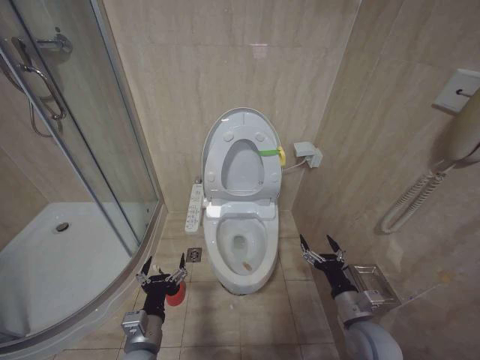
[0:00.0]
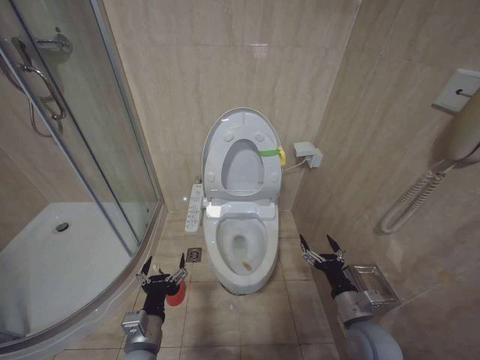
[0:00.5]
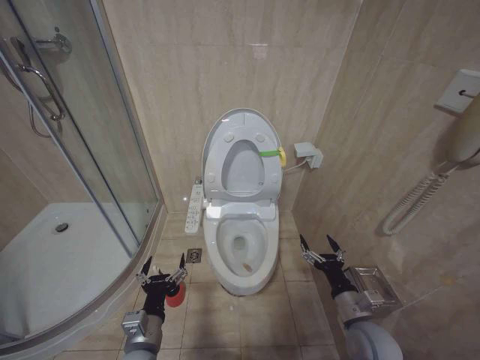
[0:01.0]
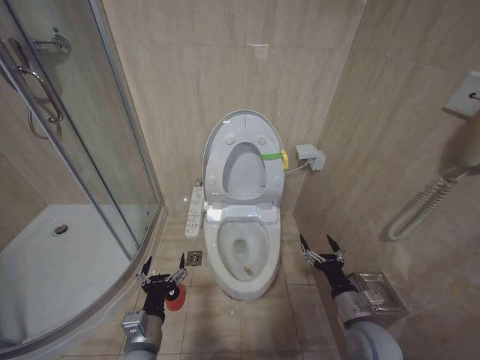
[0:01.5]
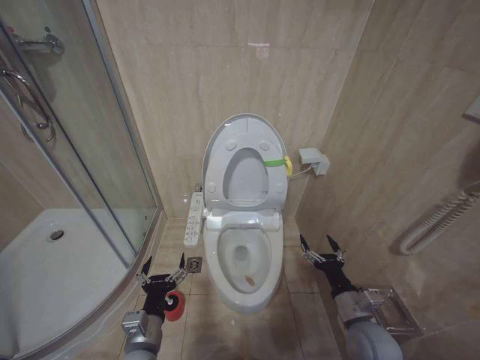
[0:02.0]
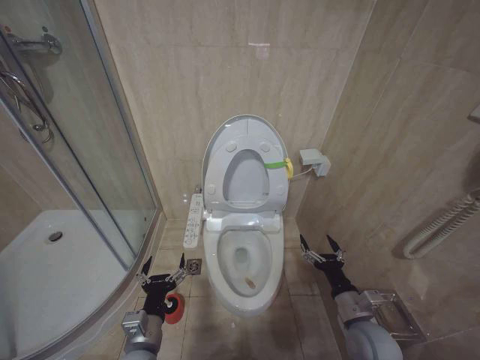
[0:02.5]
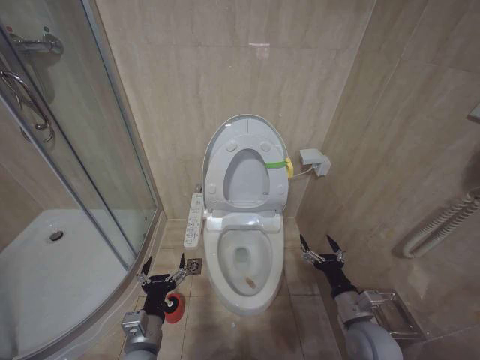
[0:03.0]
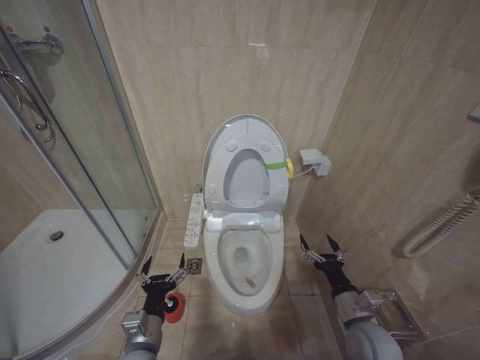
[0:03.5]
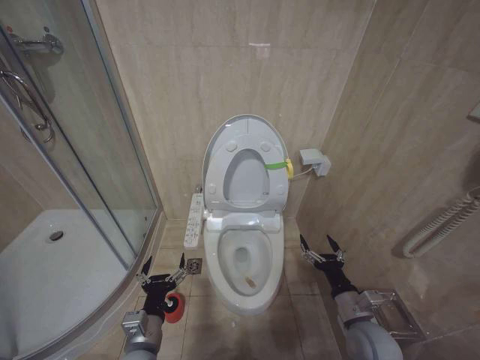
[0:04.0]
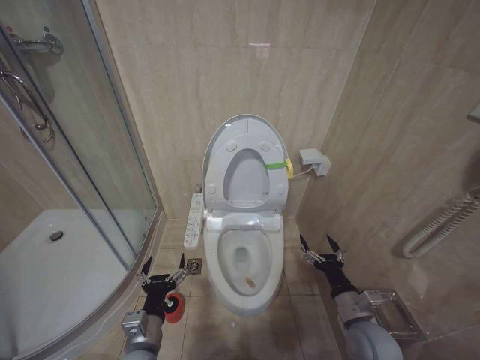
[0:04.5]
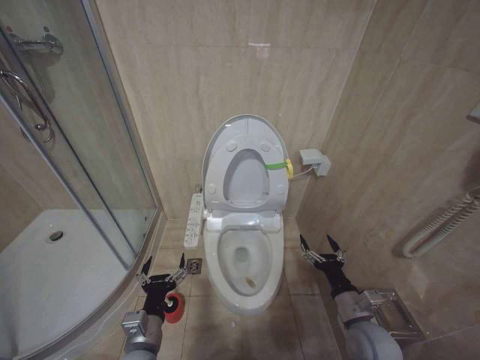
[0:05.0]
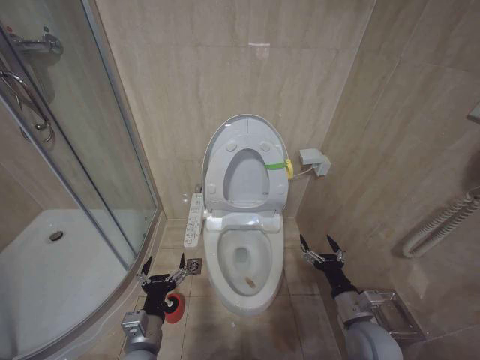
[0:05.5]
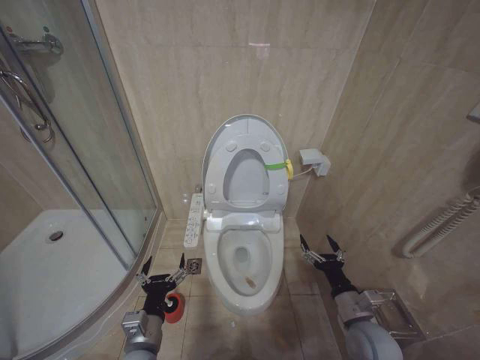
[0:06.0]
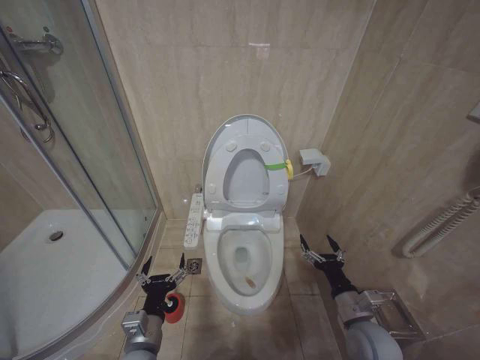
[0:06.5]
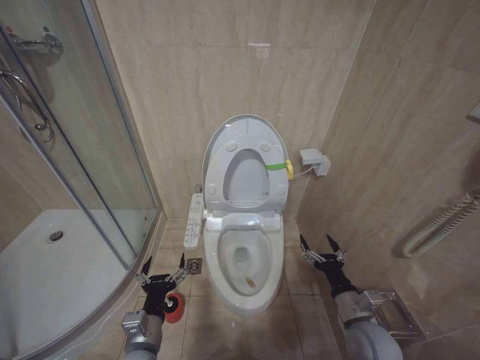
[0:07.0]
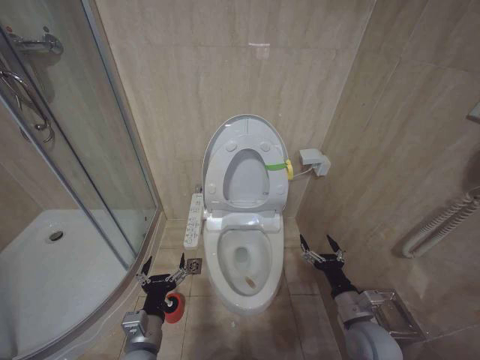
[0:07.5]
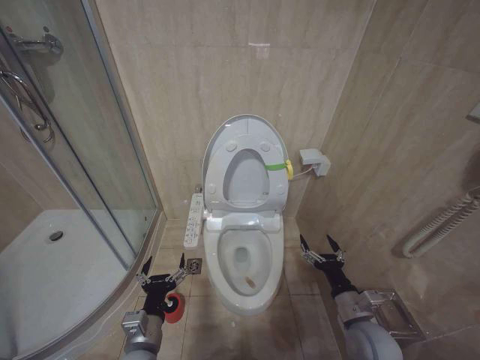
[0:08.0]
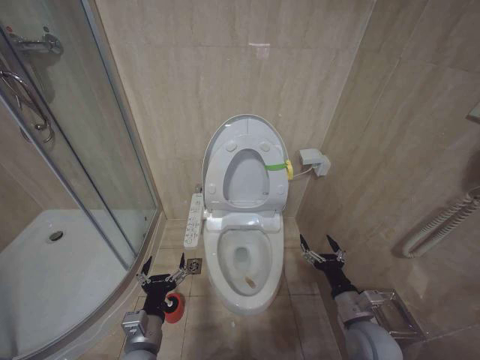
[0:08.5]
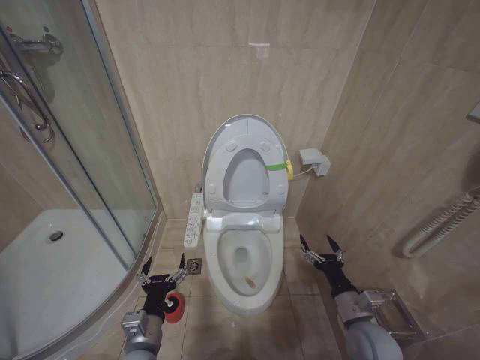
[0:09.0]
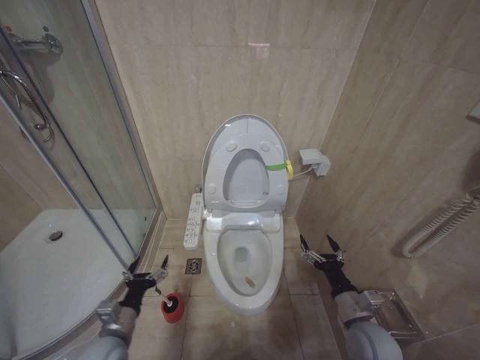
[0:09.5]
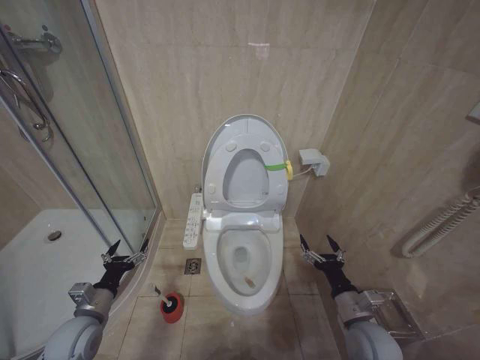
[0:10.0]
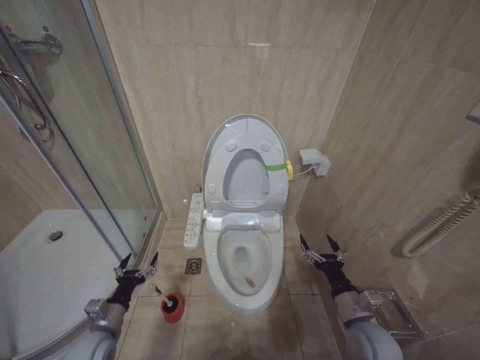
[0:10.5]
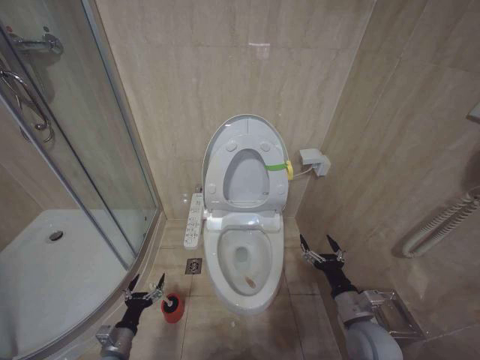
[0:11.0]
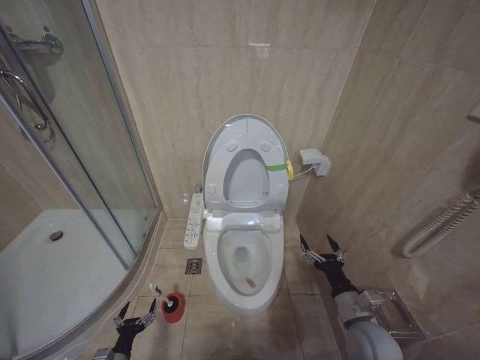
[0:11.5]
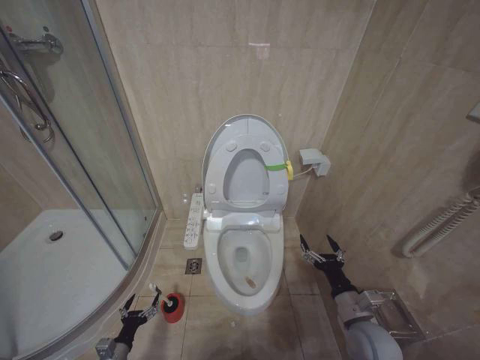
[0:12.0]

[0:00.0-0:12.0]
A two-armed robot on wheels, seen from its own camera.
Task of the whole recording: Open the toilet lid, clean the toilet bowl with a toilet brush, close the toilet lid, and flush.
0:00.0 to 0:08.0: Both grippers stay about where they are.
0:08.0 to 0:10.0: The left gripper travels to the left and forward by some 20 cm.
0:10.0 to 0:12.0: The left gripper travels downward by roughly 25 cm.

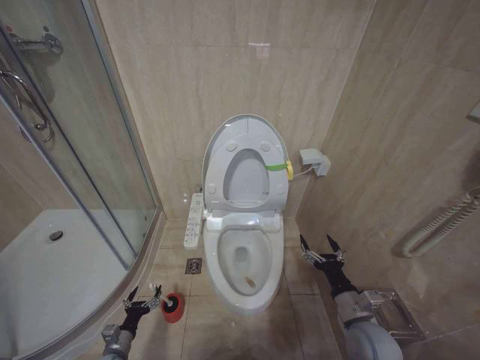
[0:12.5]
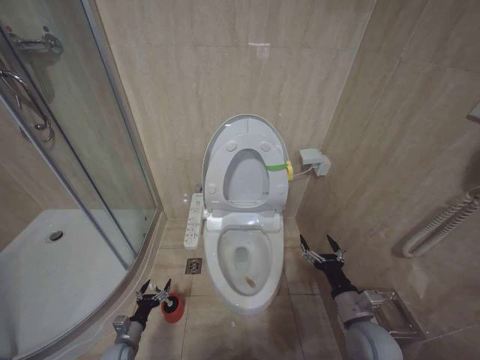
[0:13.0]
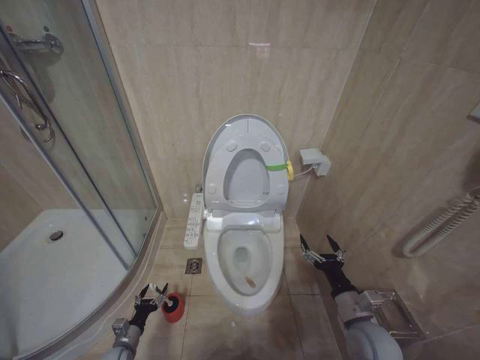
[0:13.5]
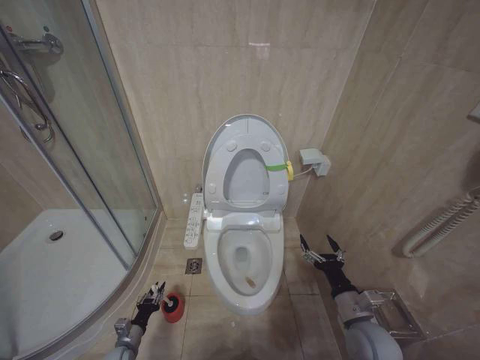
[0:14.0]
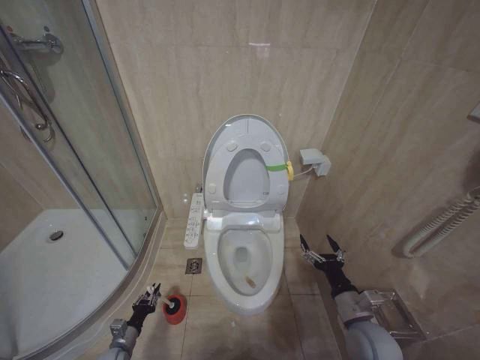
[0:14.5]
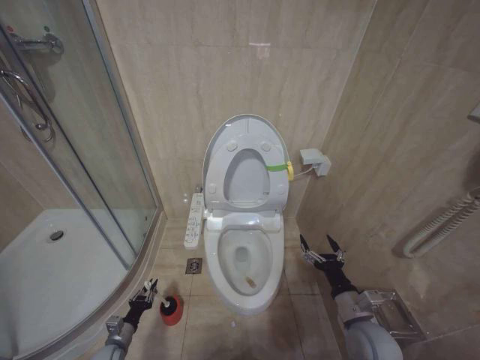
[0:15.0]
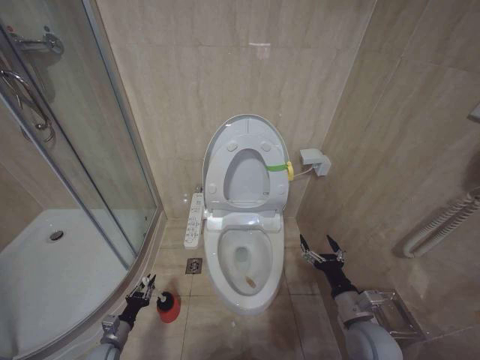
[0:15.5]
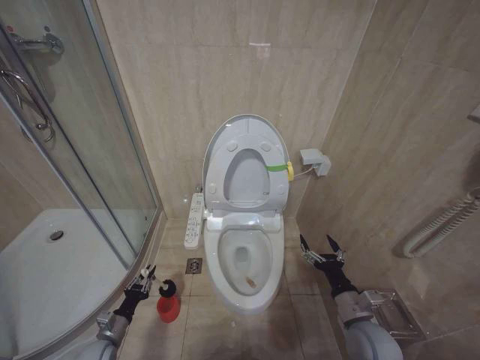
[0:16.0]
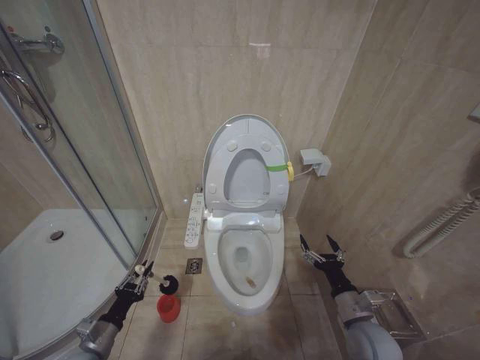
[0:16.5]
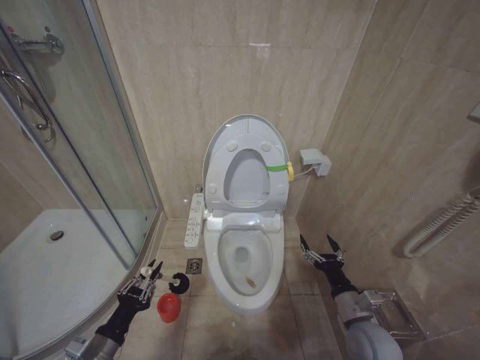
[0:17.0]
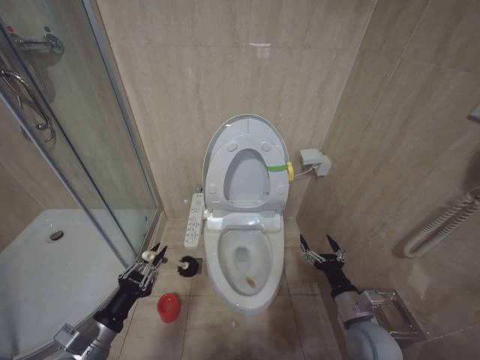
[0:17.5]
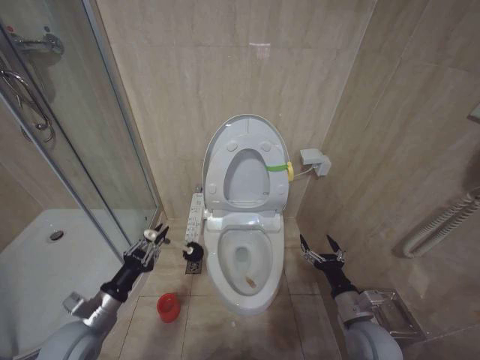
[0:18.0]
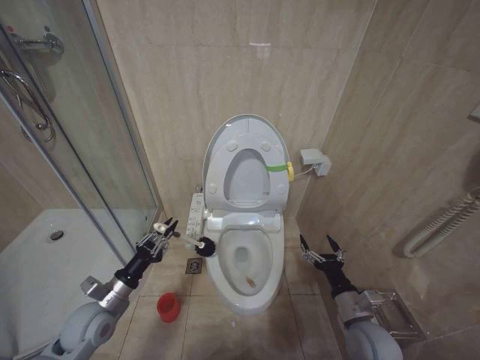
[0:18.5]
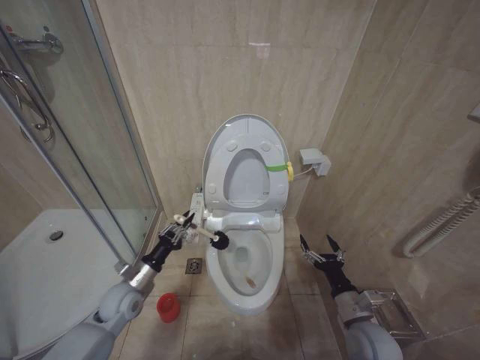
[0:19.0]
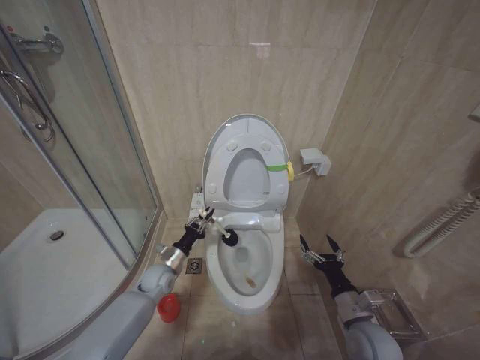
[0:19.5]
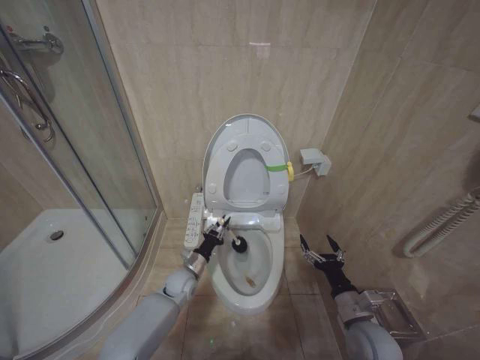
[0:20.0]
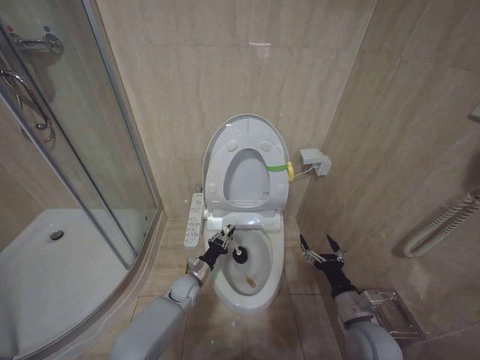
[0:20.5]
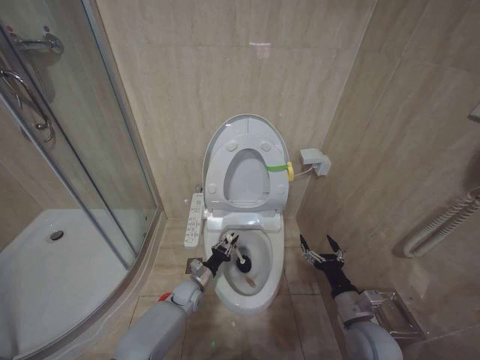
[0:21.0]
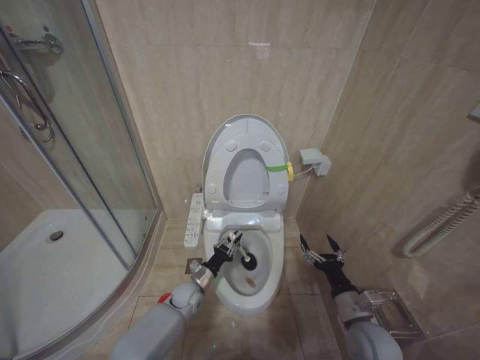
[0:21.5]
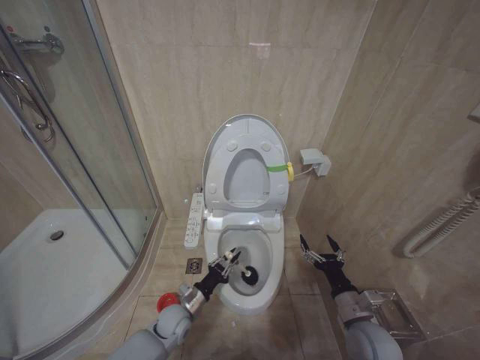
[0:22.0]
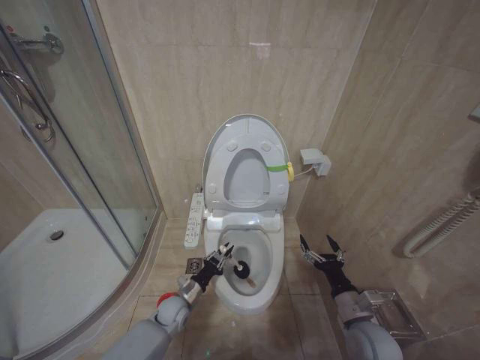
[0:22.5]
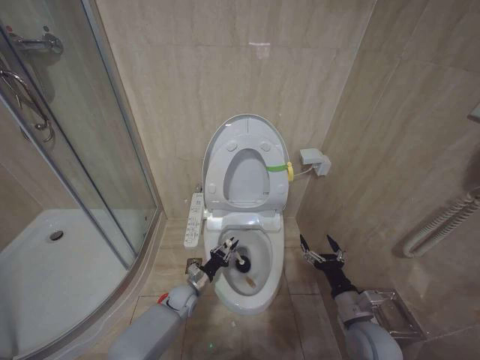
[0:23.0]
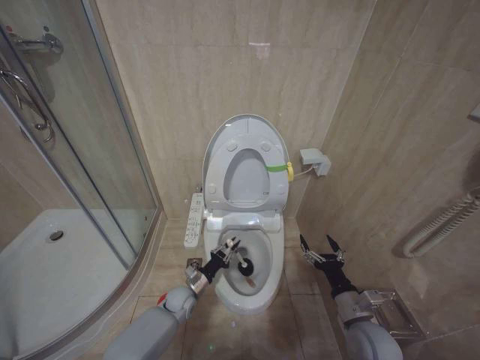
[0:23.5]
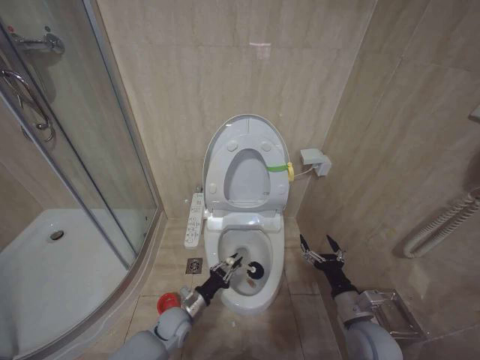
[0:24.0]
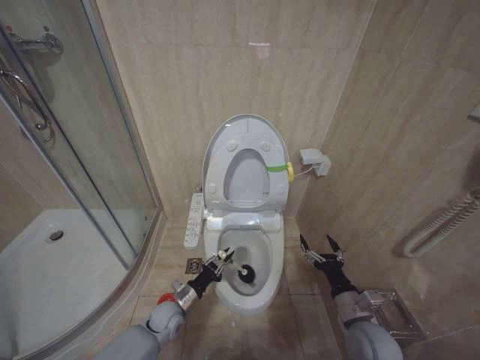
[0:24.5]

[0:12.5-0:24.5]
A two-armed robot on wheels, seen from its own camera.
Task of the whole recording: Open the toilet lid, clean the toilet bowl with a toilet brush, close the toilet lid, and flush.
0:12.5 to 0:14.5: The left gripper closes.
0:14.5 to 0:16.5: The left gripper heads upward, covering some 15 cm.
0:16.5 to 0:18.5: The left gripper heads upward and forward, covering about 10 cm.
0:18.5 to 0:20.5: The left gripper heads to the right, downward and forward, covering approximately 25 cm.
0:20.5 to 0:22.5: The left gripper heads backward, covering some 5 cm.
0:22.5 to 0:24.5: There are only small adjustments of the grippers.

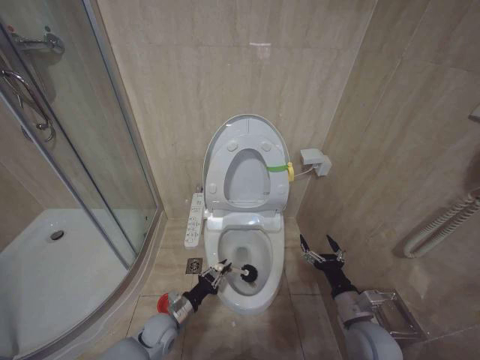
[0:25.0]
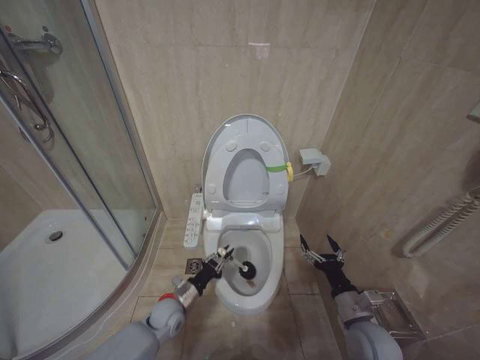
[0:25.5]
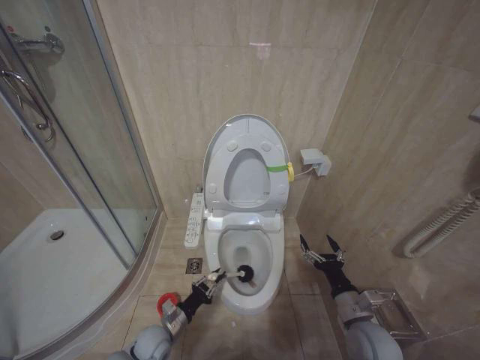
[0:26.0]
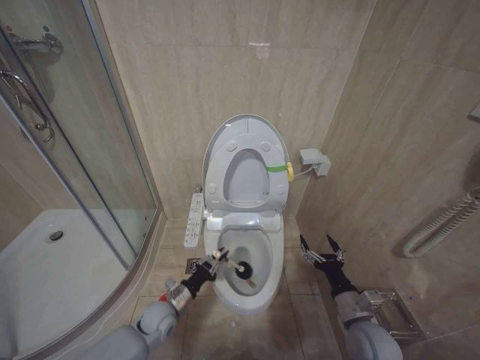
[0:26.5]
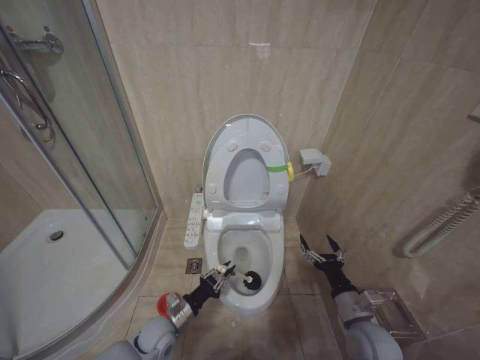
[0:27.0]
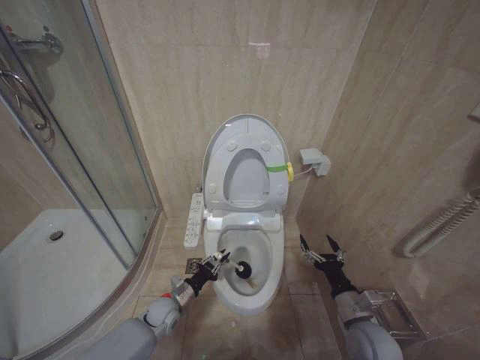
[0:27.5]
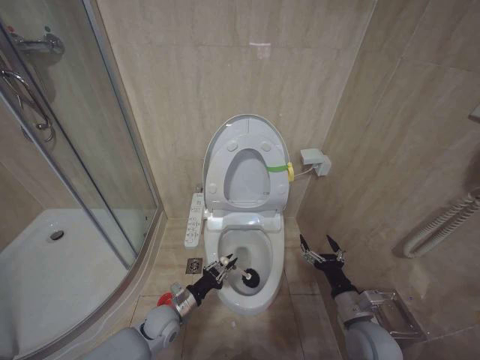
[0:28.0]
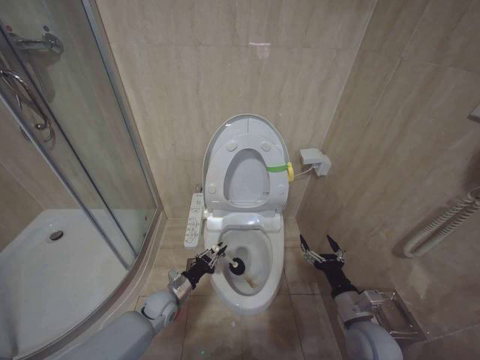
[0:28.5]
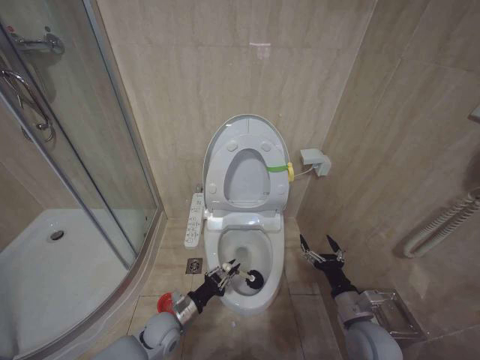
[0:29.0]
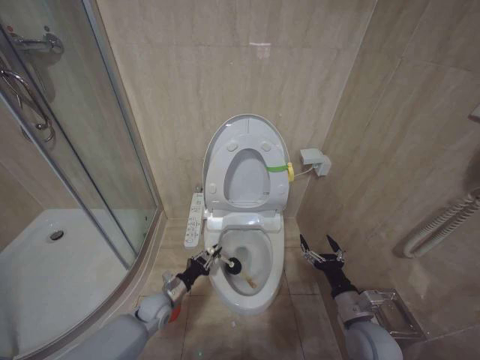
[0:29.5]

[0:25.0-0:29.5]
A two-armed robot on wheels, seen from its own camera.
Task of the whole recording: Open the toilet lid, clean the toilet bowl with a toilet brush, close the toilet lid, and flush.
0:25.0 to 0:27.0: The left gripper moves forward and backward over roughly 5 cm, changing direction 3 times.
0:27.0 to 0:29.5: The left gripper swings forward and backward, some 10 cm each way, with 2 reversals.
